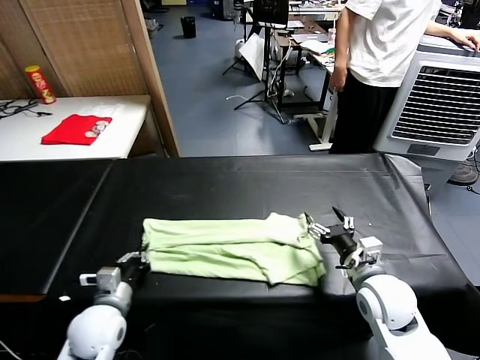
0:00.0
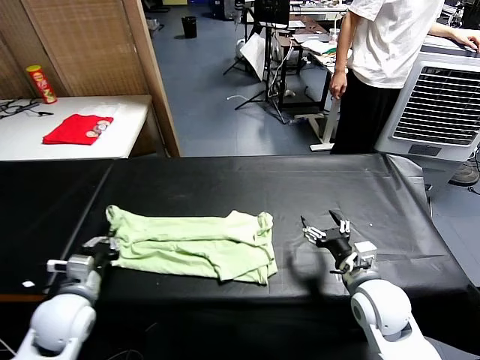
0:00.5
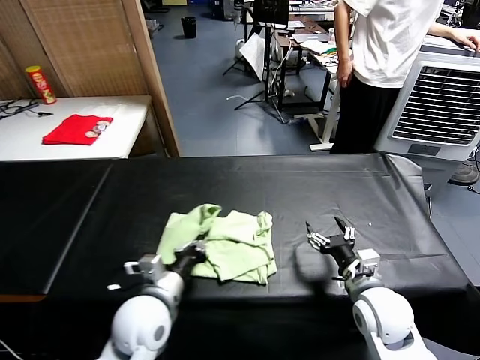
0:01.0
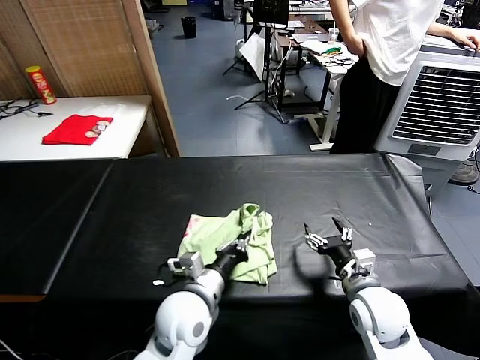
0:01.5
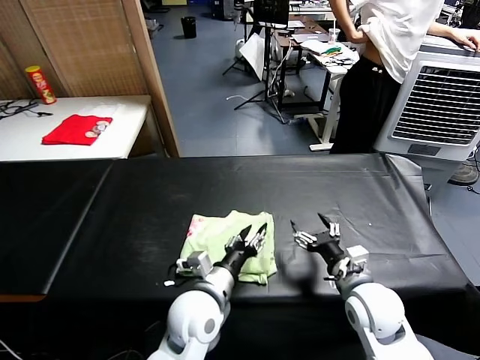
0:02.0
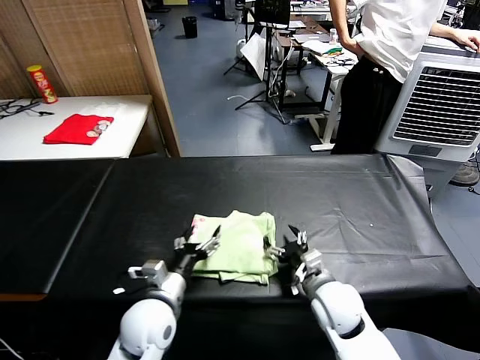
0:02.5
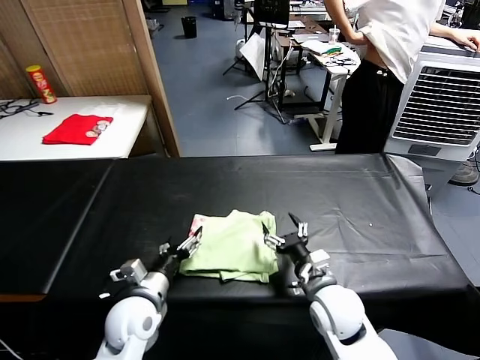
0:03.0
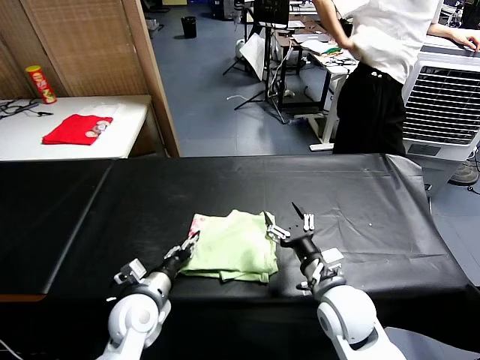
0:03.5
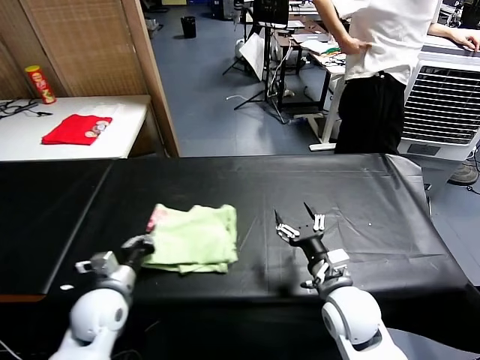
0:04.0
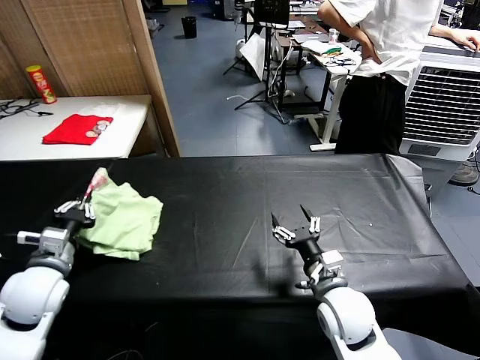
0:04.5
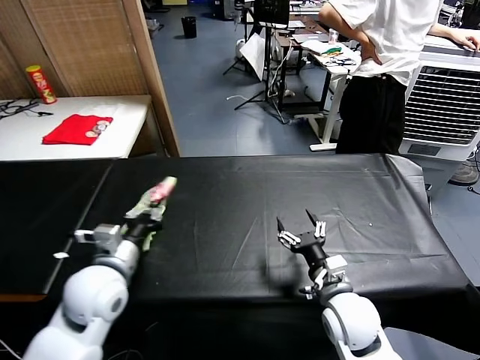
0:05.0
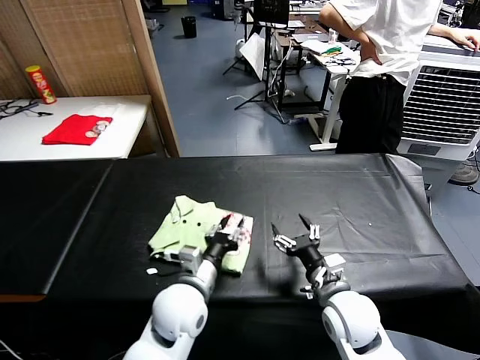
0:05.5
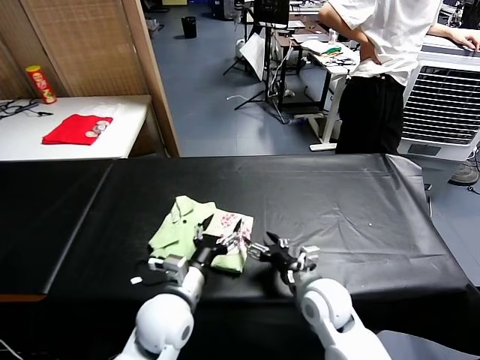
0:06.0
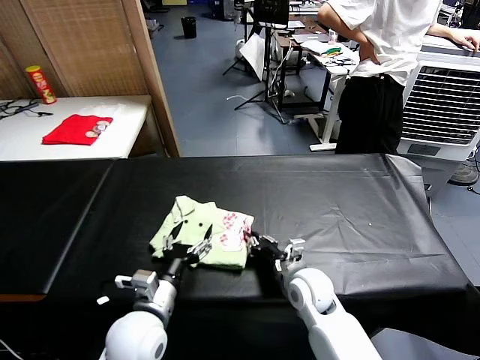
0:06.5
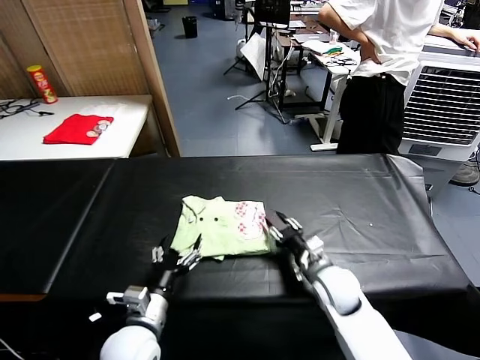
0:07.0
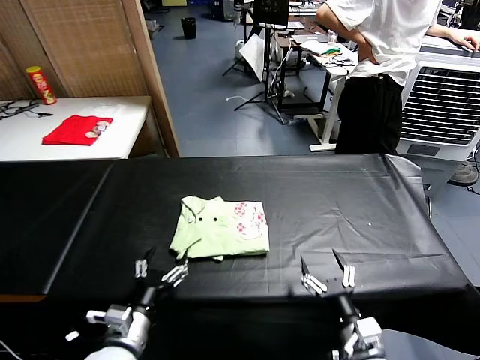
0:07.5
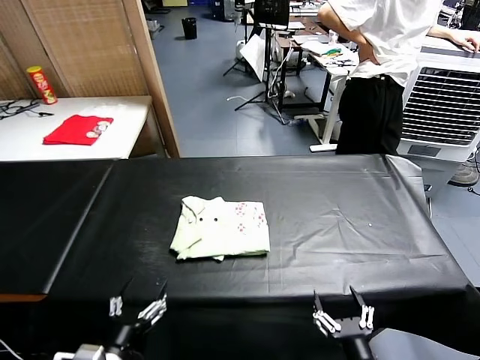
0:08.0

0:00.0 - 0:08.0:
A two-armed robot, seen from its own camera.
Task of the whole recording: fold and organize the clothes.
Step, 0:00.0 - 0:02.0: use the left gripper to drag the left edge of the fabric to the left and folds it over the right edge.
Step, 0:02.5 - 0:05.5: Flip the folded clothes over with left gripper.
Step, 0:06.0 - 0:06.5: Drag the clothes to the center of the table.
0:00.0 - 0:02.0: The left gripper heads to the right, covering roughly 20 cm, and opens its fingers.
0:02.0 - 0:04.0: The left gripper is displaced to the left by approximately 20 cm, and closes.
0:04.0 - 0:06.0: The right gripper shifts by about 5 cm. The left gripper moves to the right, some 15 cm, and opens up.
0:06.0 - 0:08.0: The right gripper heads backward, covering approximately 20 cm, and closes and opens again. Meanwhile the left gripper goes about 20 cm backward and to the left.
